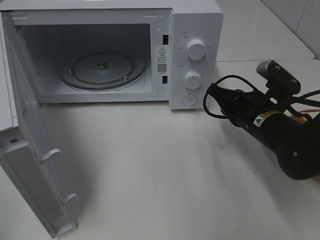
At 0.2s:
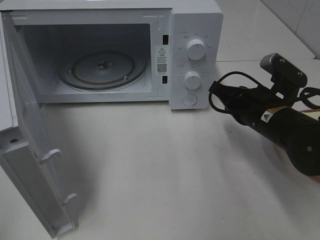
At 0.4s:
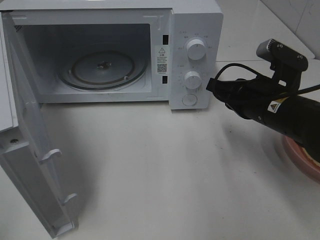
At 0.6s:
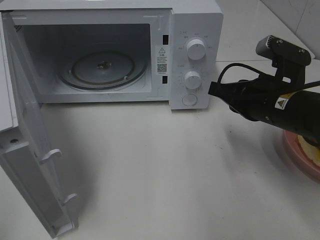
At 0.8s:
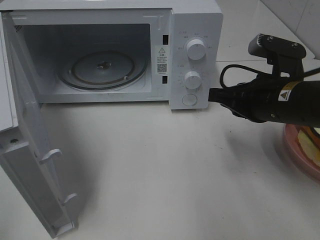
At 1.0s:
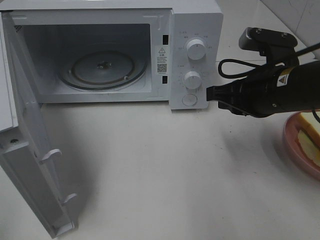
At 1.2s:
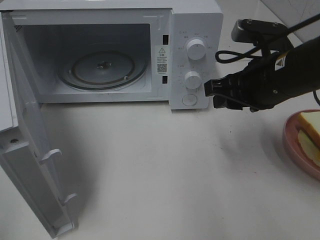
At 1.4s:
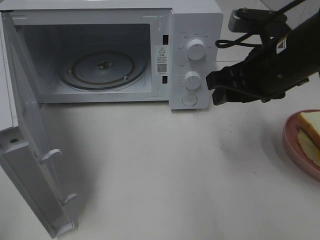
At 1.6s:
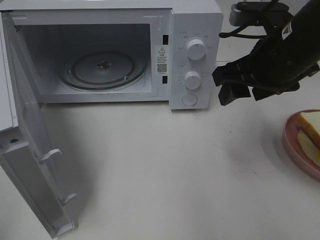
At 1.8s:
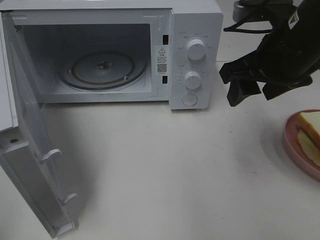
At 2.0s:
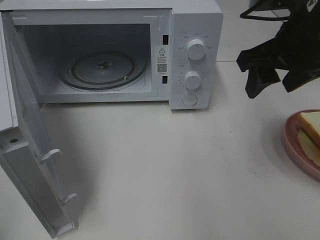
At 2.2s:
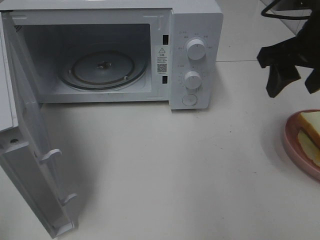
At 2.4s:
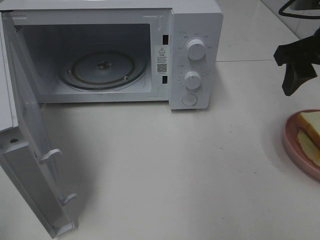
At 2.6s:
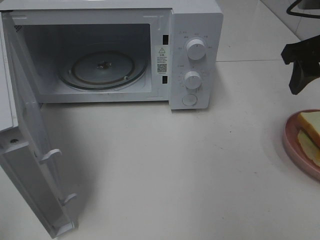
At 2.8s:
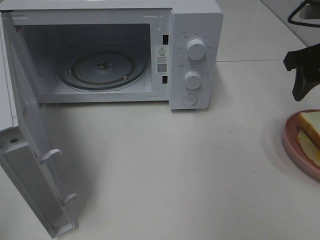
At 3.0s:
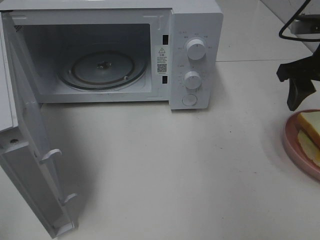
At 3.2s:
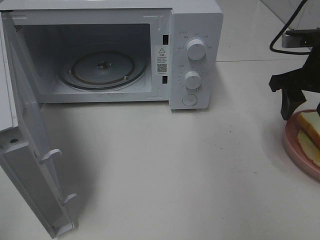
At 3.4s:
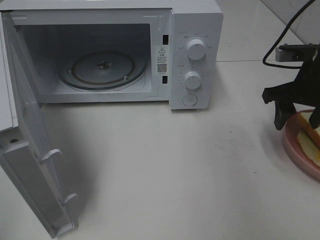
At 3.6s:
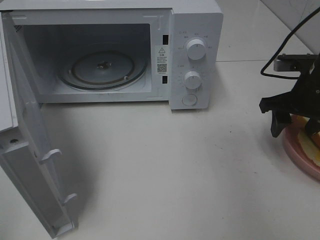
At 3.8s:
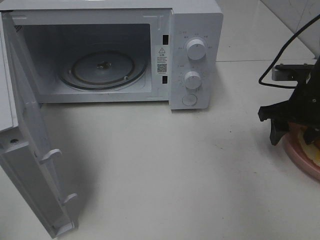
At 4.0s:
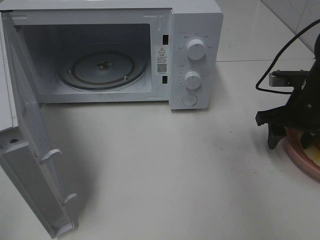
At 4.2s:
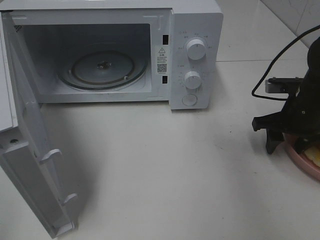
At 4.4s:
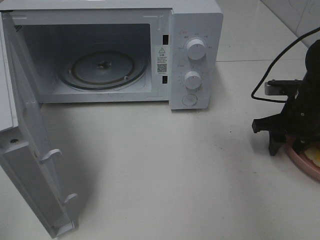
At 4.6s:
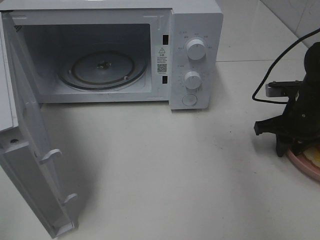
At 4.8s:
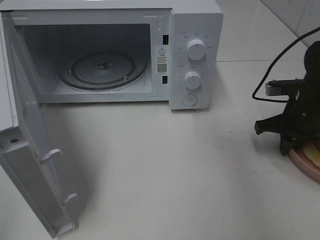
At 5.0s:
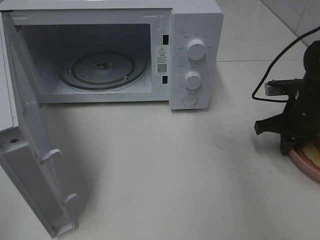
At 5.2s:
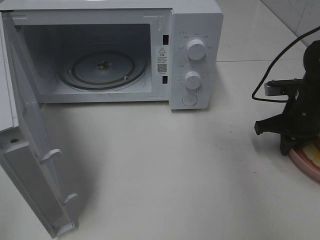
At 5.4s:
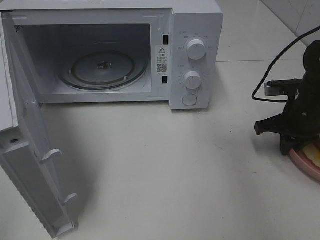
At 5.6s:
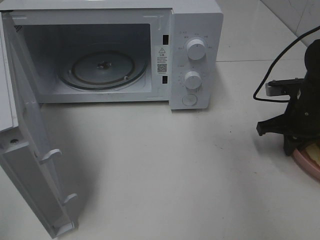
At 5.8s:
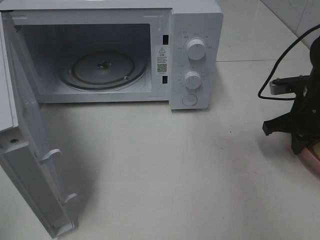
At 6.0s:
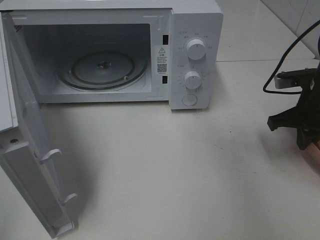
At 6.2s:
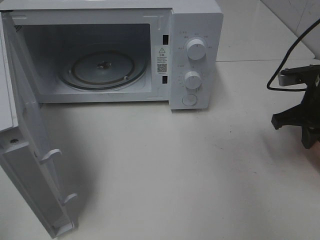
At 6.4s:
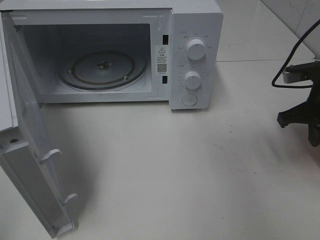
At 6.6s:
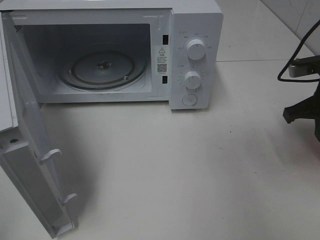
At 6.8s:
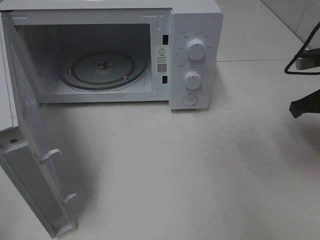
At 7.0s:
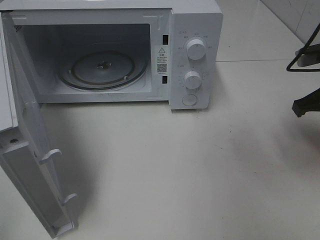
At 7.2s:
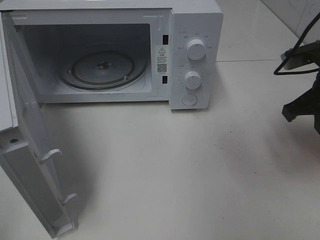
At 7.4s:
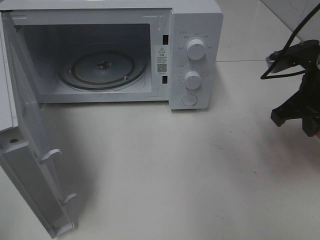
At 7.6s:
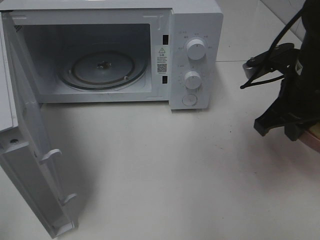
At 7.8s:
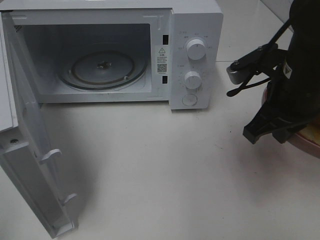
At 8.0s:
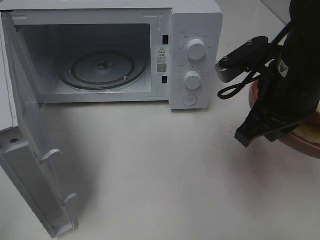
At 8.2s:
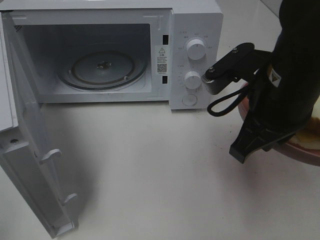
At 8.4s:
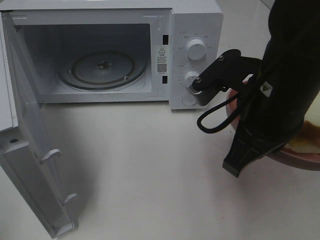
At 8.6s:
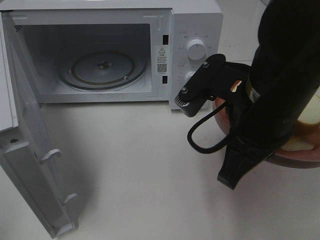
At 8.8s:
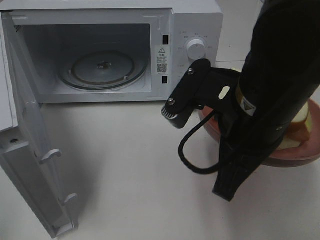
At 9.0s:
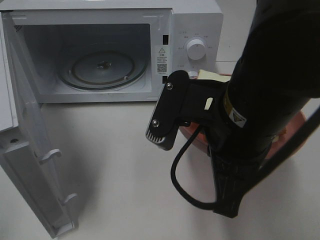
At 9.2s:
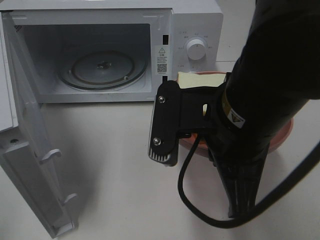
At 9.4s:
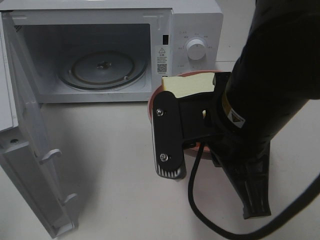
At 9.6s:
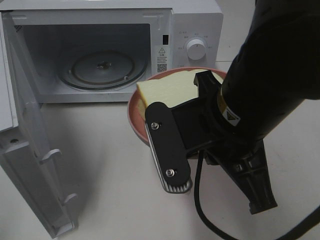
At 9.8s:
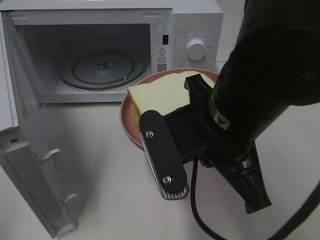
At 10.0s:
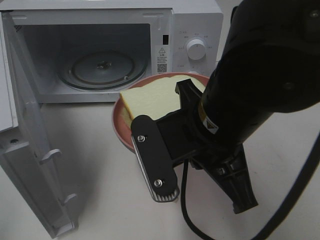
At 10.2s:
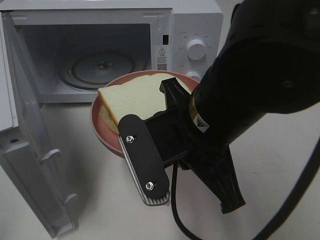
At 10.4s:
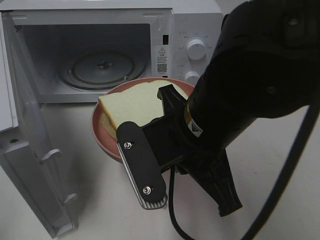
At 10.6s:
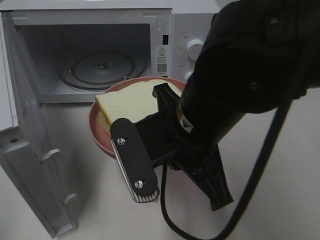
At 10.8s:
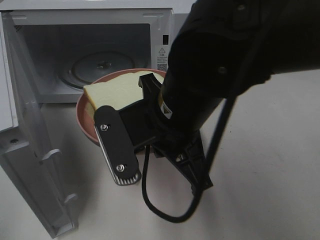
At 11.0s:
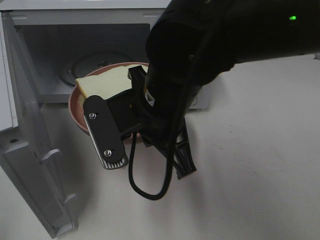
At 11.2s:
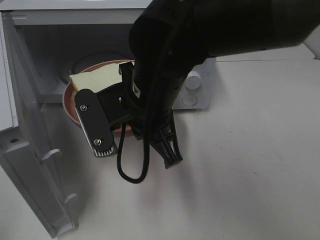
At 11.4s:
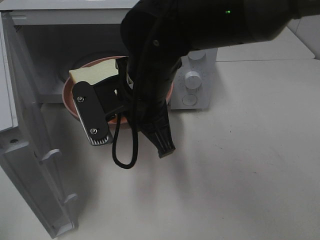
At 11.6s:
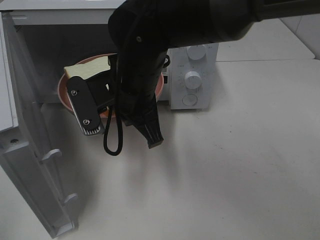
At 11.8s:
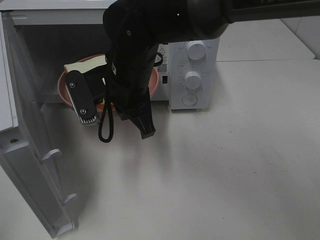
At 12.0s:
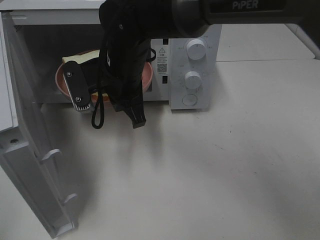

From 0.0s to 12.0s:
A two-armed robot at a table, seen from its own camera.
Task of the whole recording: Heat Sandwich.
Step, from 0.0s to 5.8s: Right hand: grab the plate with the sandwich.
From 0.0s to 1.6s: The right gripper travels upward by approximately 15 cm, and opens its fingers.
From 1.6s to 3.0s: The right gripper travels to the right by about 10 cm.
From 3.0s to 4.4s: The right gripper travels downward by some 15 cm.
From 4.4s to 6.0s: The right gripper closes its fingers.
From 6.0s to 7.6s: The right gripper shifts about 10 cm to the left and upward.
From 7.6s to 9.0s: The right gripper goes approximately 15 cm to the left and backward.
From 10.4s to 12.0s: The right gripper heads forward and to the left, covering roughly 20 cm.

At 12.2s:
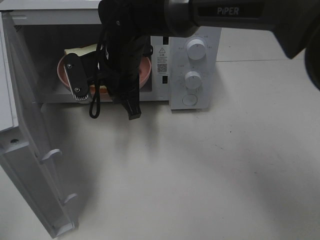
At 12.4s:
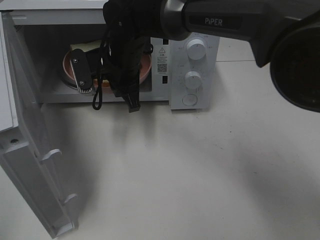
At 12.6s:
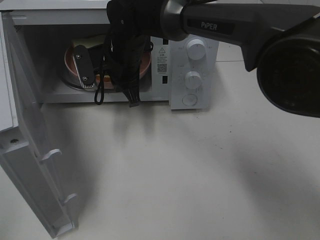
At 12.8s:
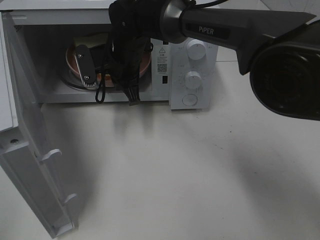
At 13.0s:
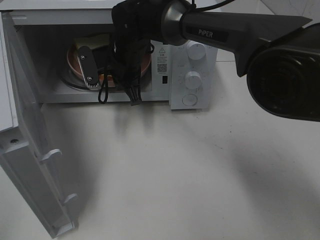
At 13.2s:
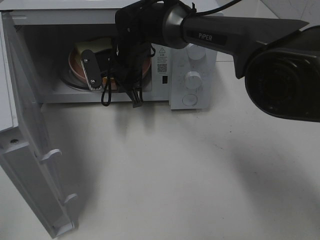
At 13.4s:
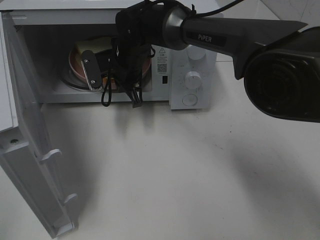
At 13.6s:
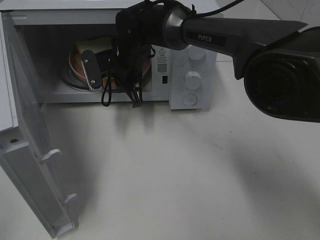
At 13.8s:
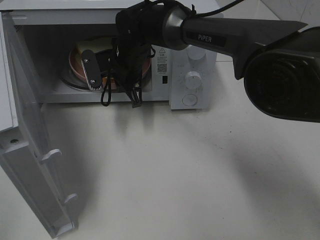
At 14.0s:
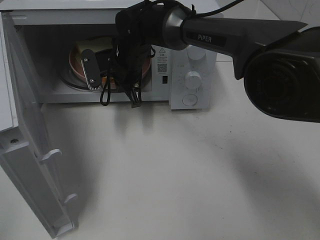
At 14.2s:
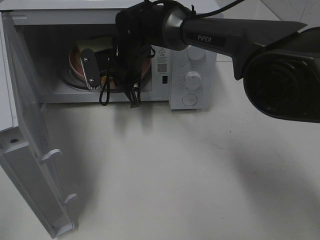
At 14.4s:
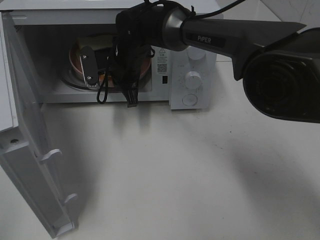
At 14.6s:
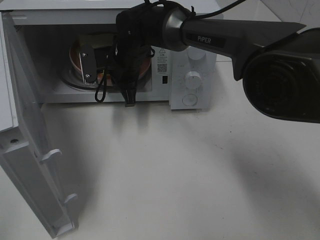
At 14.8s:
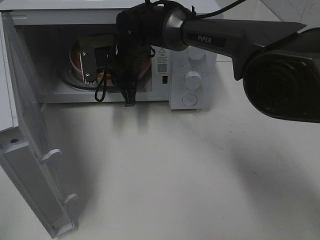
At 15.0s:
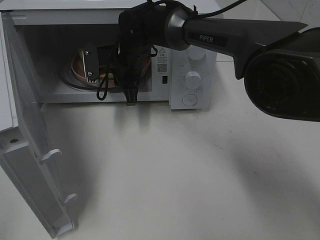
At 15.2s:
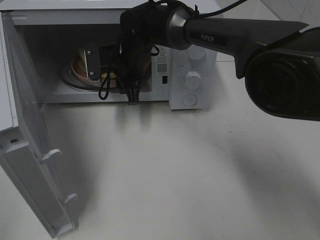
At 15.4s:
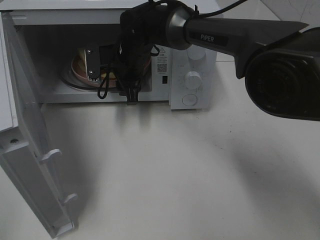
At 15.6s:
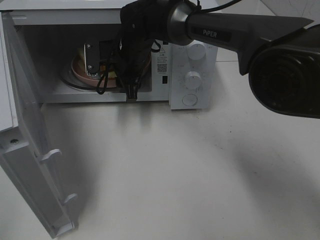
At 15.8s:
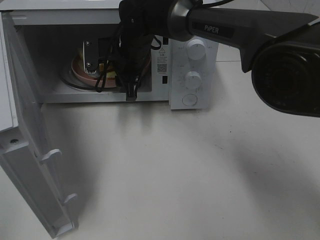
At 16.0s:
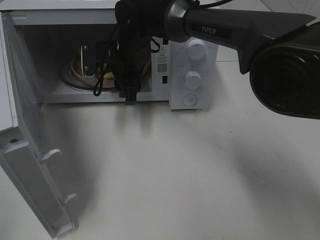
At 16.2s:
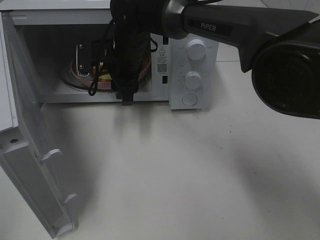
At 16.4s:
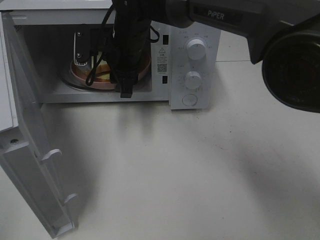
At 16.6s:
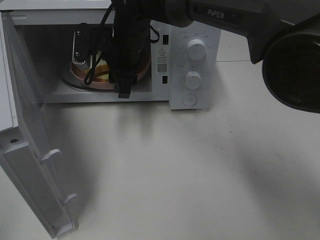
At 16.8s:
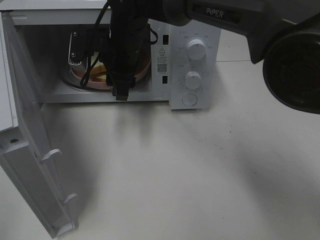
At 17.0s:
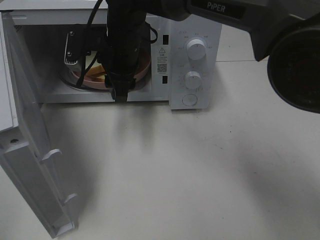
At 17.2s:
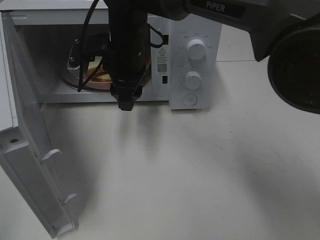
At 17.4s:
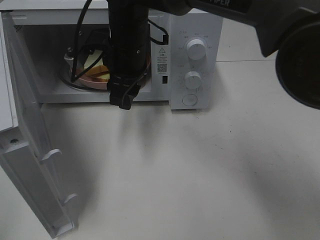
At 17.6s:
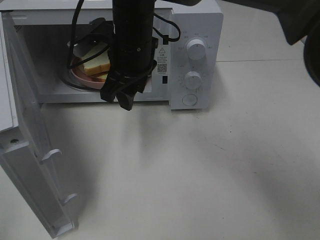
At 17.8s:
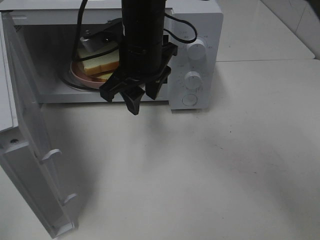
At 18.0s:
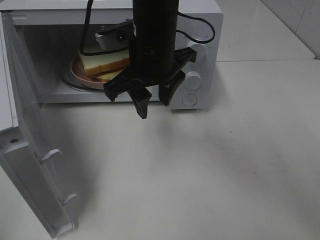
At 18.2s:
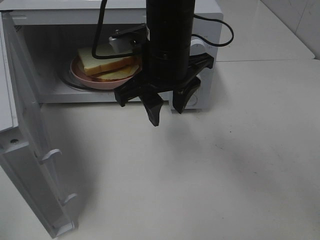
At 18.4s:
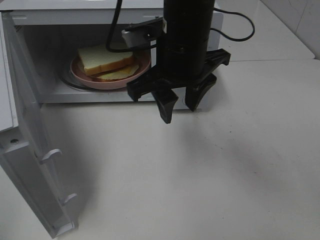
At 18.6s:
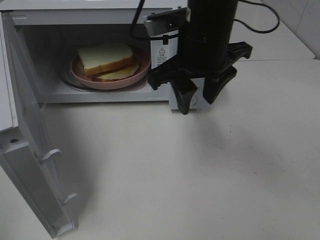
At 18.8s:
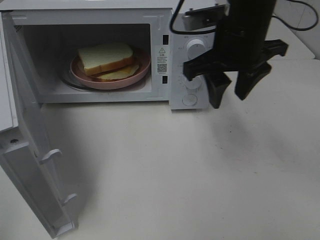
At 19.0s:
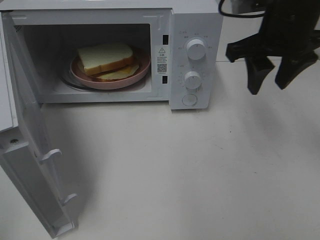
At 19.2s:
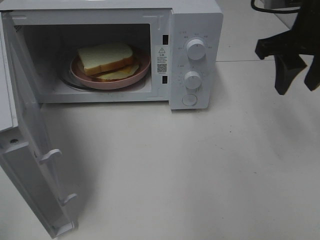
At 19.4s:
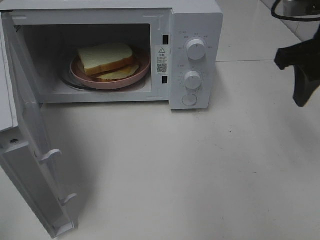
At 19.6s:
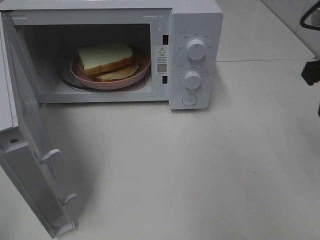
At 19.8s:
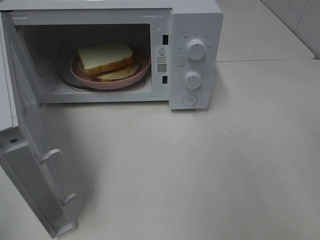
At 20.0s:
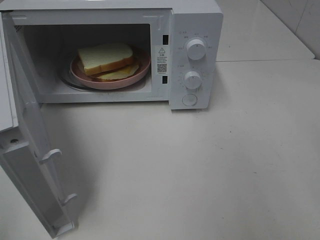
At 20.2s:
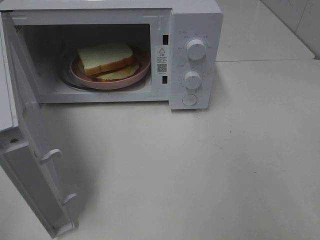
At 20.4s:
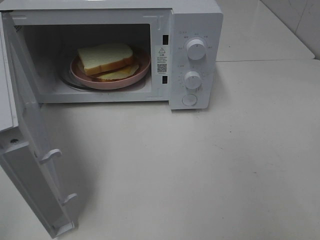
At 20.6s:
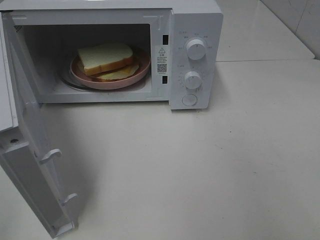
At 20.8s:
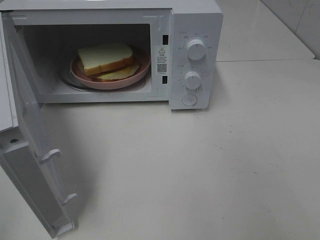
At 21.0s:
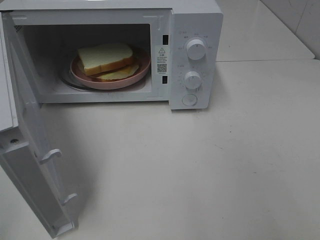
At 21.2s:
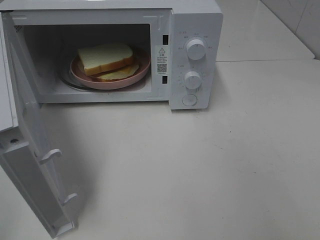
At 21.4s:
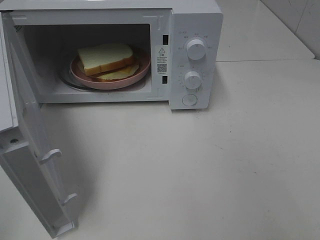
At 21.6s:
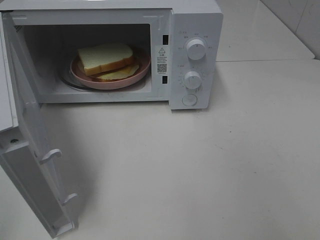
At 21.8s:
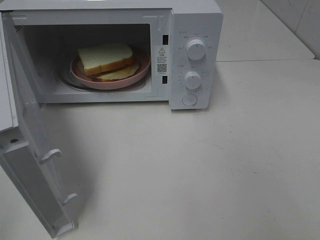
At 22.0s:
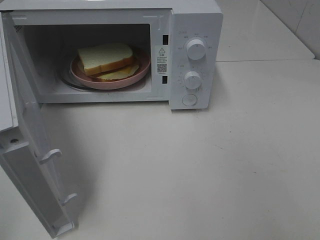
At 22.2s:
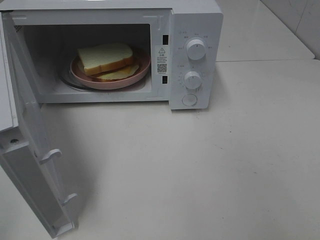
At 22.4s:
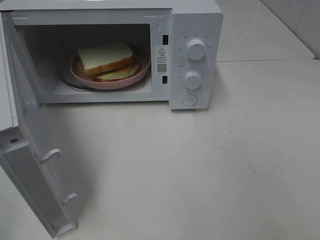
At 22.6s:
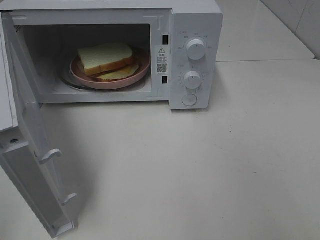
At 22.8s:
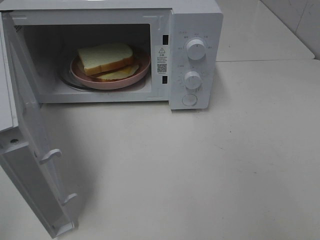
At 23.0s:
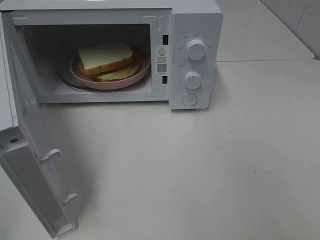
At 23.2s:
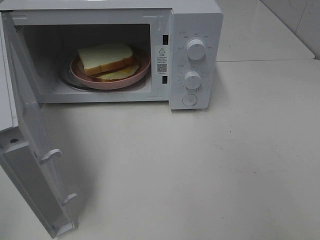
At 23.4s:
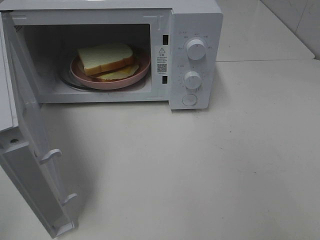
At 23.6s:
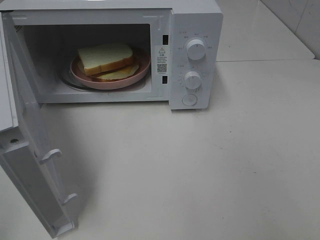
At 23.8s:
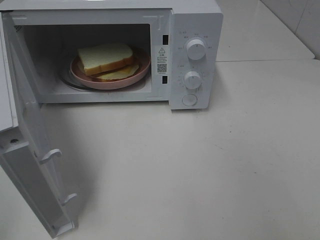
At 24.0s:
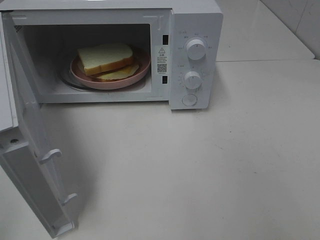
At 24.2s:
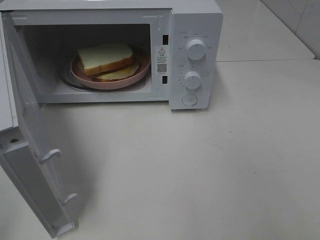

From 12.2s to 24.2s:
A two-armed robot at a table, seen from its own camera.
Task of the whole recording: Heat Sandwich.
Step, from 12.2s to 16.6s: Right hand: place the plate in the microwave.
From 12.2s to 13.8s: The right gripper shifts roughly 5 cm forward.
From 13.8s to 15.2s: The right gripper opens.
From 15.2s to 16.6s: The right gripper shifts by approximately 5 cm.
From 16.6s to 18.2s: The right gripper travels backward and to the right by roughly 15 cm.
From 18.2s to 19.8s: The right gripper is displaced to the right and backward by roughly 30 cm.
From 21.2s to 22.6s: The two grippers keep their place.
